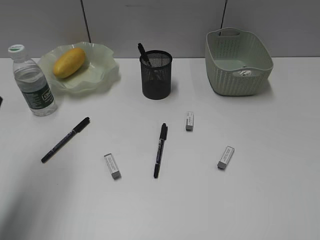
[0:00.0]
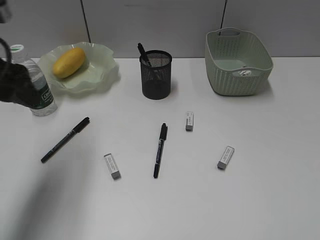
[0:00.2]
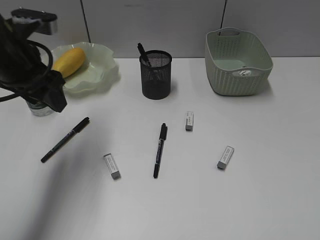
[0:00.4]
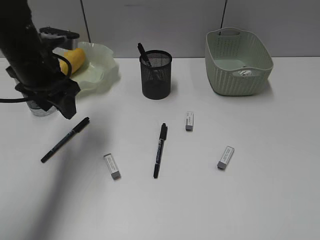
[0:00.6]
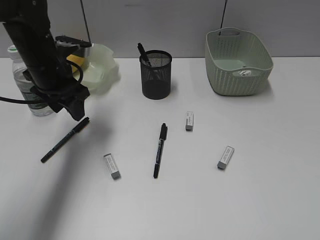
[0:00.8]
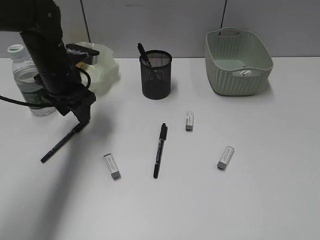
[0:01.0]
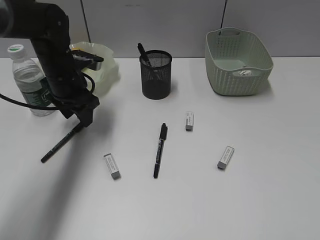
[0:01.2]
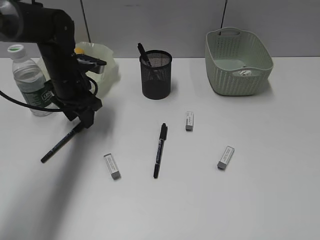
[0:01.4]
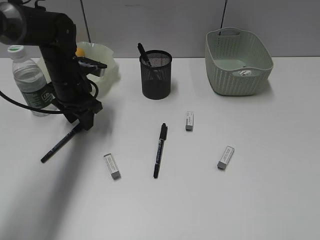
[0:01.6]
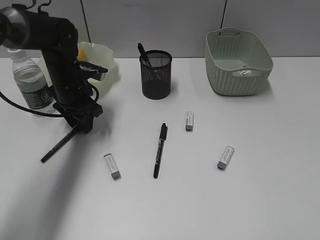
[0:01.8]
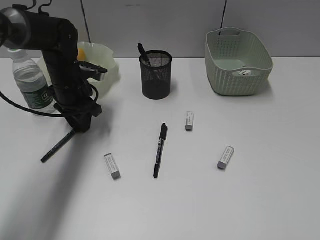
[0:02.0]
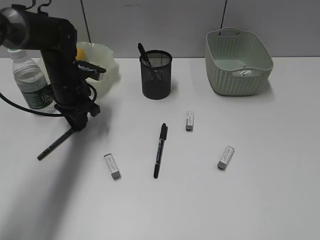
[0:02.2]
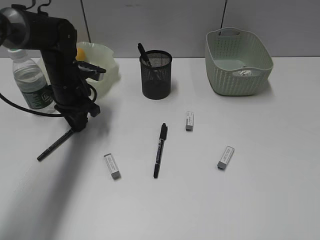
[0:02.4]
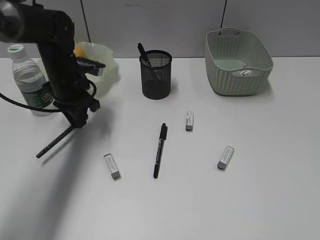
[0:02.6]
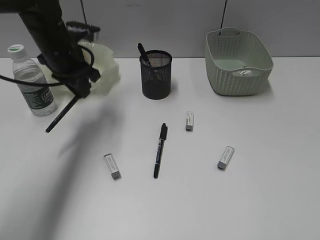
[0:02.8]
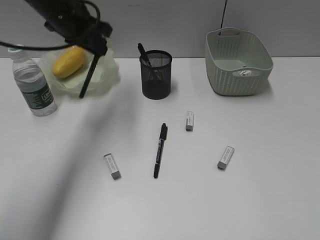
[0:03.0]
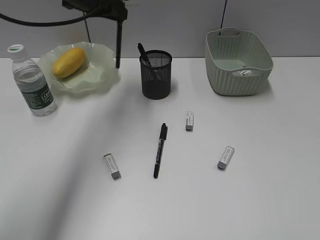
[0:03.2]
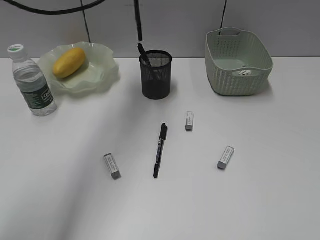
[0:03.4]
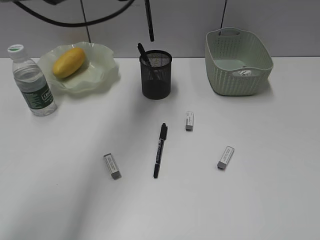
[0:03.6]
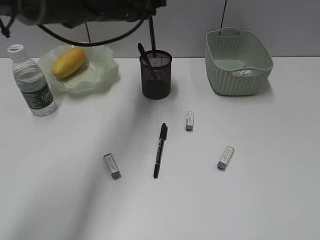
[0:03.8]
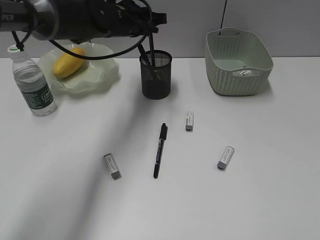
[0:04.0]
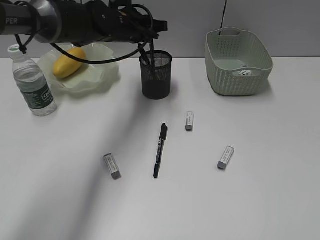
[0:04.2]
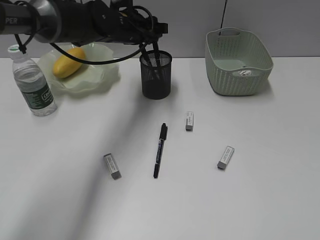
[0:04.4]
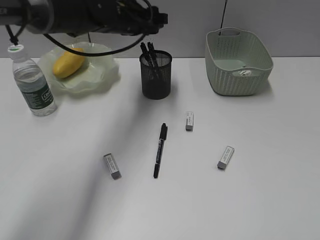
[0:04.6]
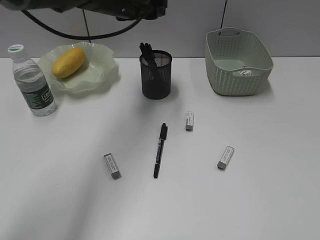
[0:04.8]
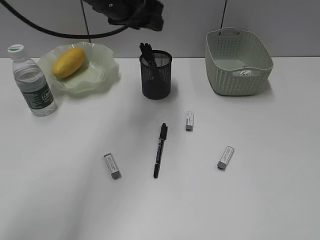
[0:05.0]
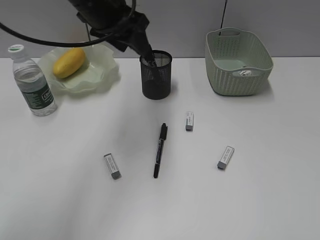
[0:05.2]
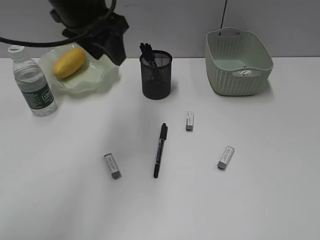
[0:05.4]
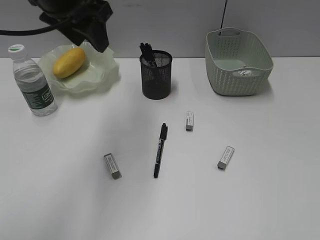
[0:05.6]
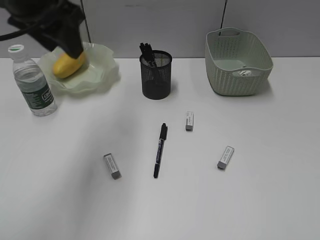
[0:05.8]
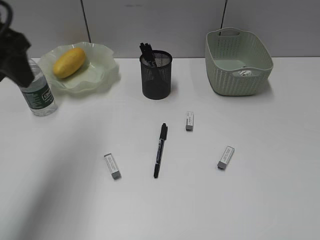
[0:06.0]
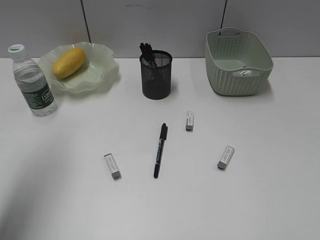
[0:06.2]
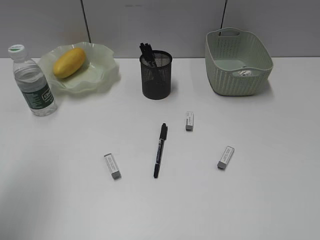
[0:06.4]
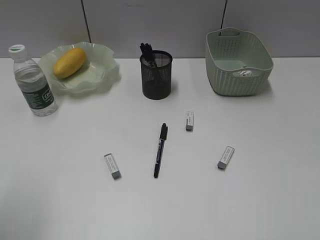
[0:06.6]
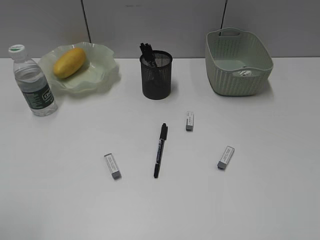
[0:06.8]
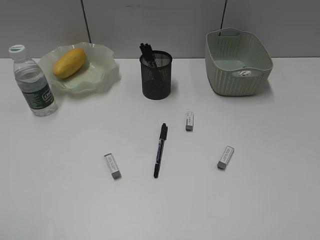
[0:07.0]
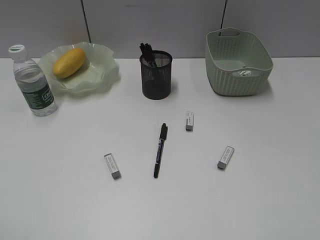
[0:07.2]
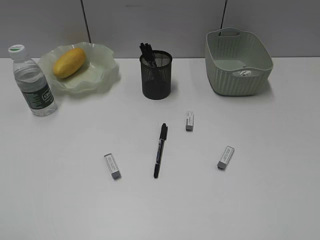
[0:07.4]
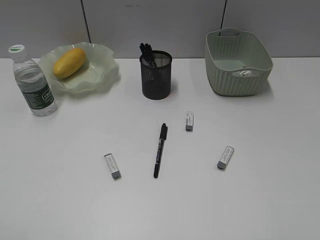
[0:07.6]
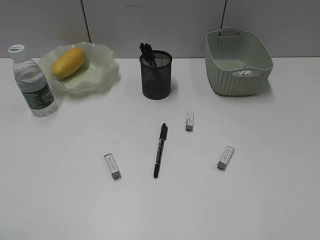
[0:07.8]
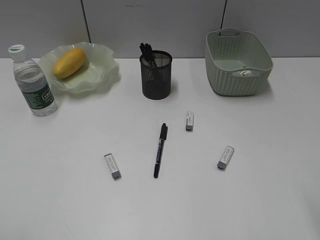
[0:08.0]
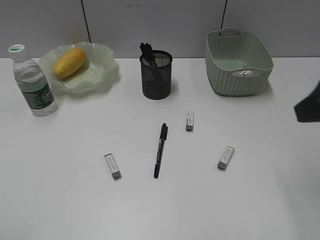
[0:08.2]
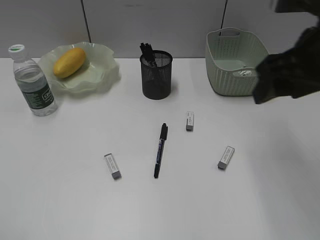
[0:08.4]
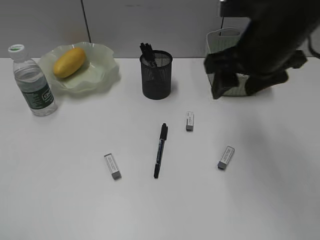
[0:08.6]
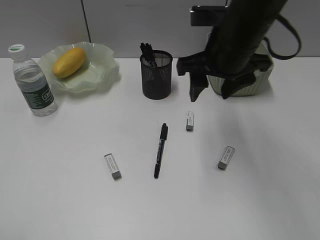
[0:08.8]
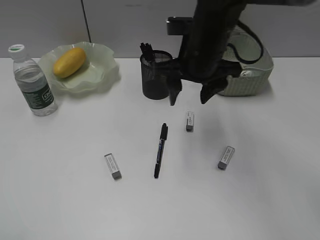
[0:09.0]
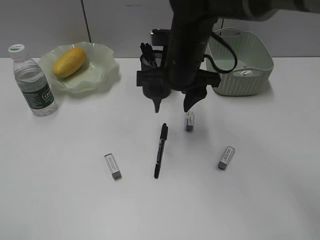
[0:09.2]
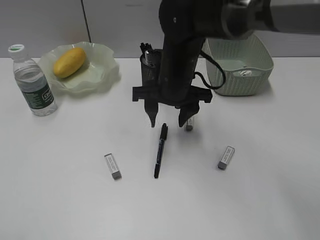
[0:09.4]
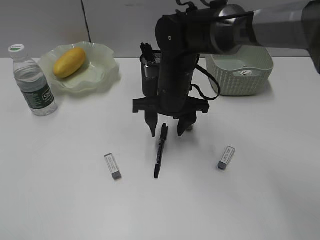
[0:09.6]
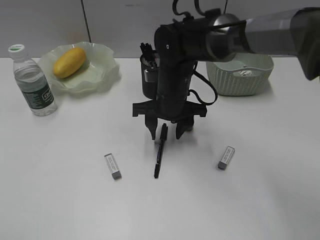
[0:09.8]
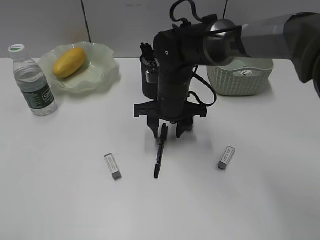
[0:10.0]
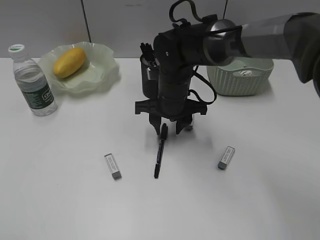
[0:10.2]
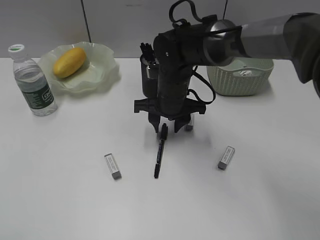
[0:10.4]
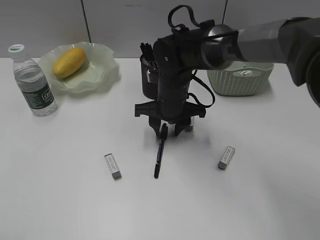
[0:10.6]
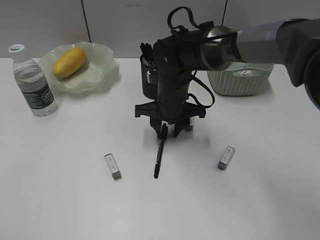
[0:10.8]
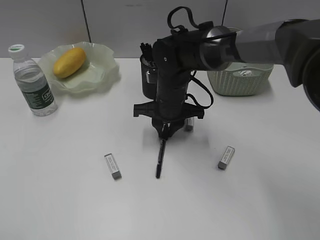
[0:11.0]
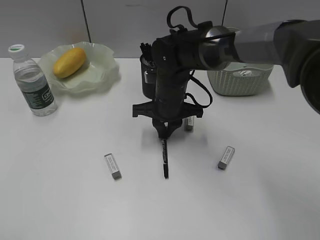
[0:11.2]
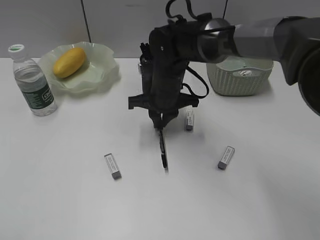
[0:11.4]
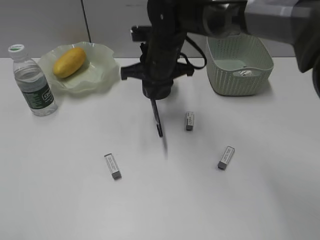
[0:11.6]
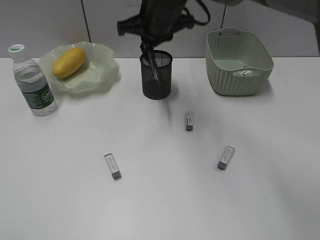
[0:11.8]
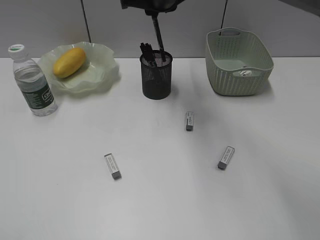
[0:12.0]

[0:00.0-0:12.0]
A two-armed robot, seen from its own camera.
Step, 0:00.0 to 0:02.4: Grasp the black pen with left gripper.
Step, 0:02.6 to 0:04.6: Place the black pen in pen holder with left gripper.
Step, 0:04.8 to 0:11.0: Grasp the black pen with right gripper.
0:00.0 to 0:01.6: The left gripper shifts some 30 cm forward, downward and to the right.
0:01.6 to 0:03.0: The left gripper is displaced upward by about 15 cm, and closes up.
0:03.0 to 0:04.4: The left gripper moves to the right and downward, roughly 10 cm, and opens its fingers.
0:04.4 to 0:06.0: The left gripper goes some 30 cm backward, to the left and upward.
0:06.0 to 0:07.6: The left gripper heads backward, covering some 25 cm.
0:07.6 to 0:09.0: The right gripper is displaced forward and to the left by some 40 cm.
0:09.0 to 0:10.4: The right gripper travels downward by approximately 10 cm.
0:10.4 to 0:12.0: The right gripper shifts some 15 cm upward, and closes.

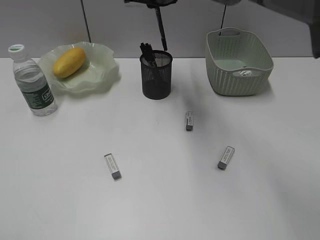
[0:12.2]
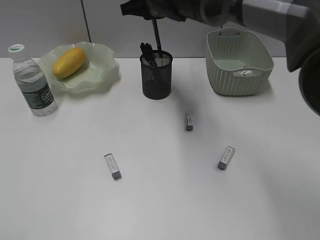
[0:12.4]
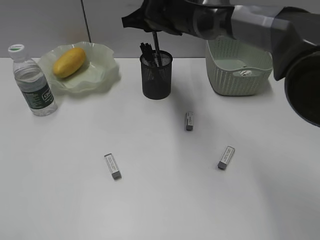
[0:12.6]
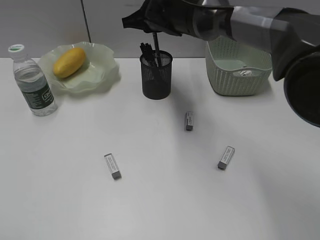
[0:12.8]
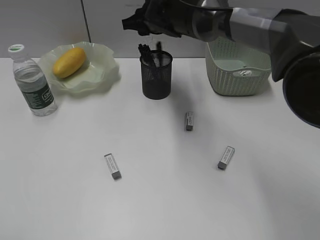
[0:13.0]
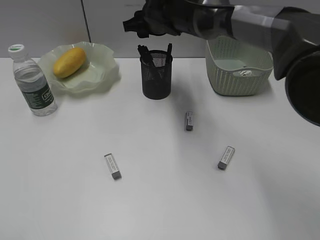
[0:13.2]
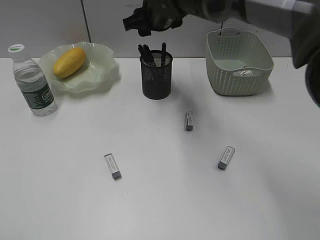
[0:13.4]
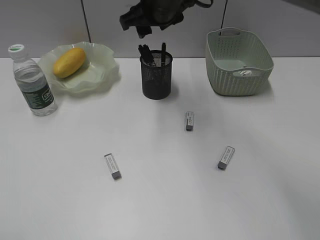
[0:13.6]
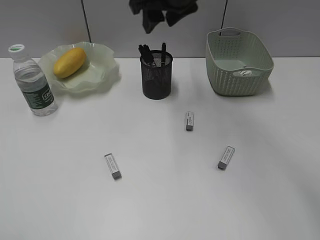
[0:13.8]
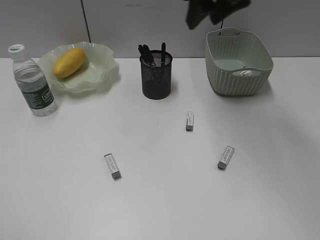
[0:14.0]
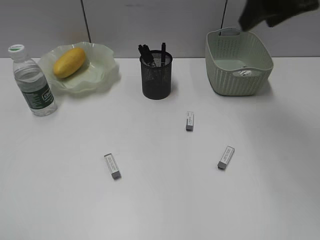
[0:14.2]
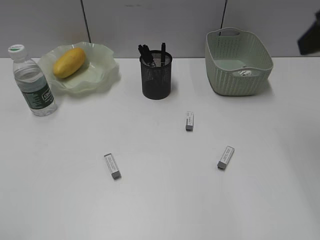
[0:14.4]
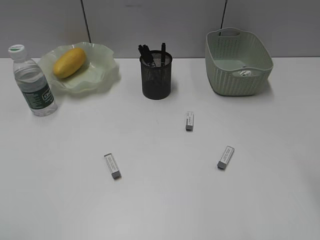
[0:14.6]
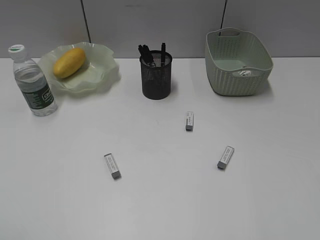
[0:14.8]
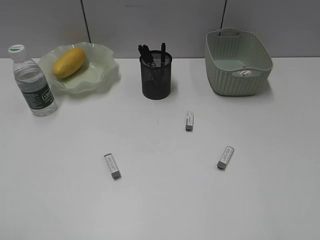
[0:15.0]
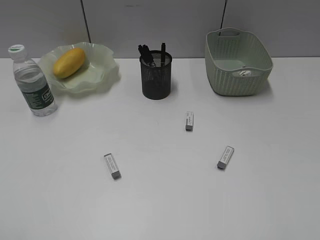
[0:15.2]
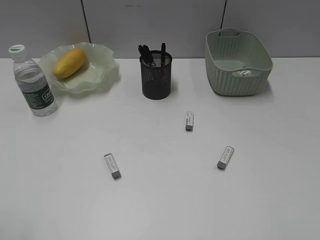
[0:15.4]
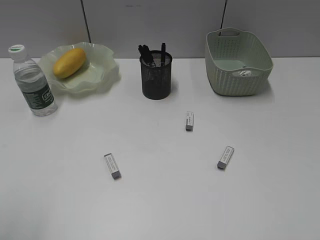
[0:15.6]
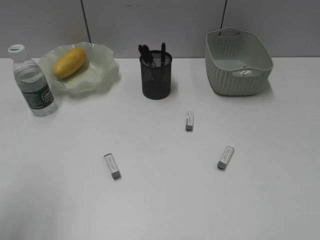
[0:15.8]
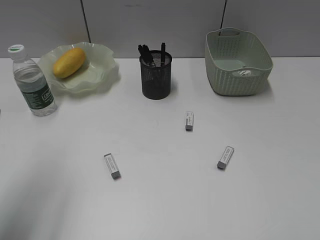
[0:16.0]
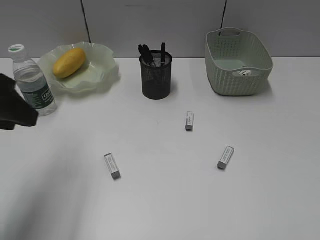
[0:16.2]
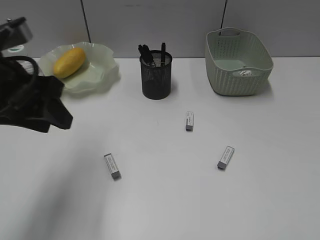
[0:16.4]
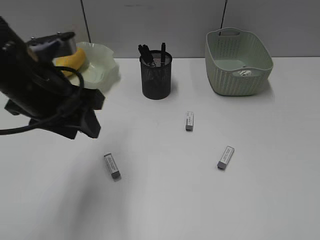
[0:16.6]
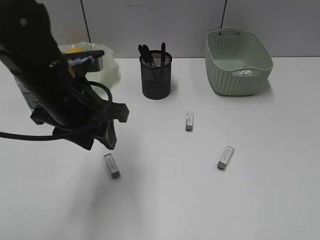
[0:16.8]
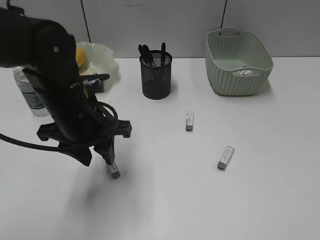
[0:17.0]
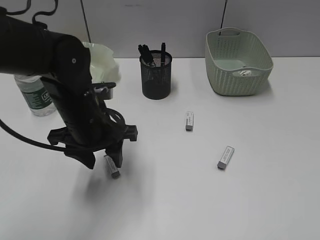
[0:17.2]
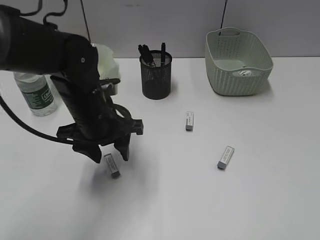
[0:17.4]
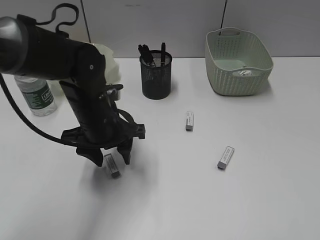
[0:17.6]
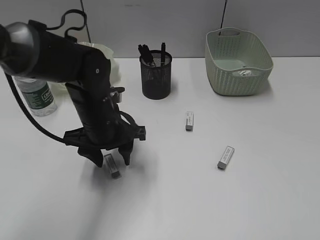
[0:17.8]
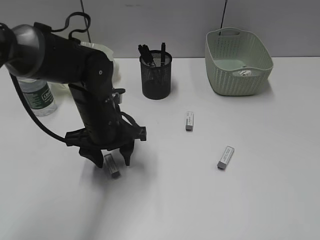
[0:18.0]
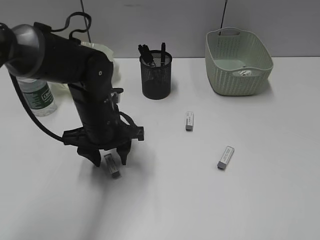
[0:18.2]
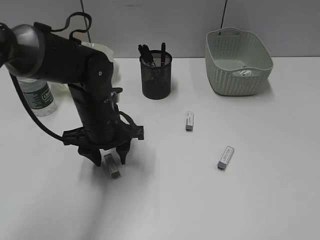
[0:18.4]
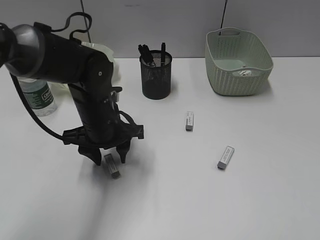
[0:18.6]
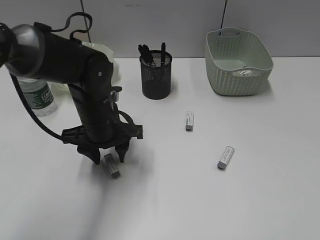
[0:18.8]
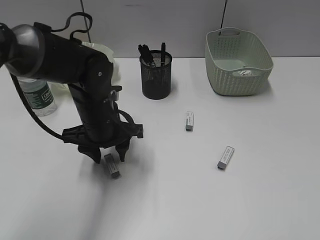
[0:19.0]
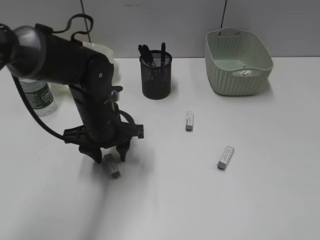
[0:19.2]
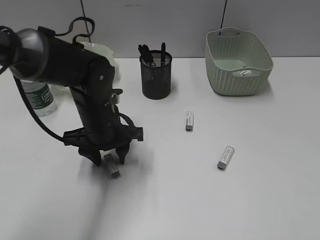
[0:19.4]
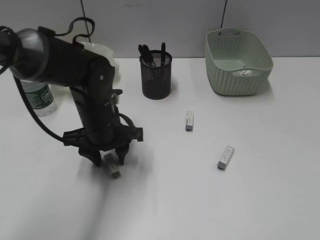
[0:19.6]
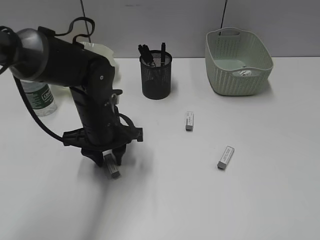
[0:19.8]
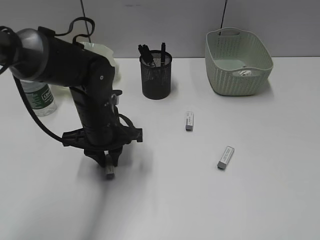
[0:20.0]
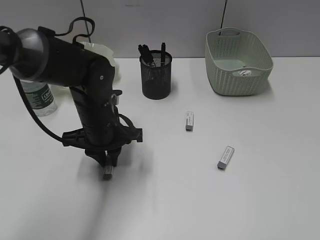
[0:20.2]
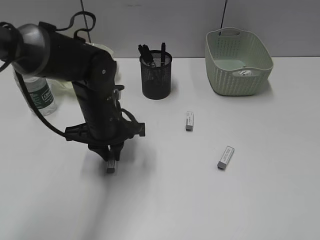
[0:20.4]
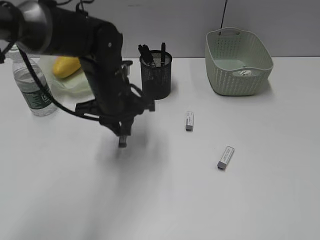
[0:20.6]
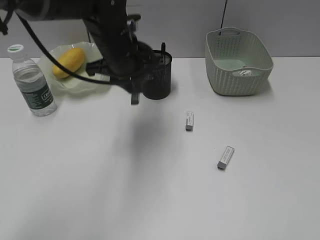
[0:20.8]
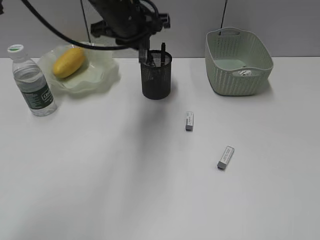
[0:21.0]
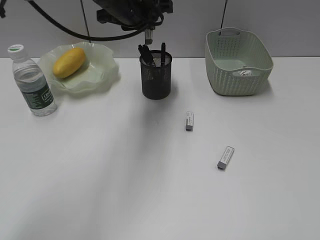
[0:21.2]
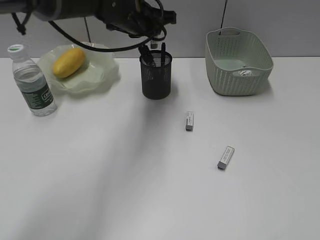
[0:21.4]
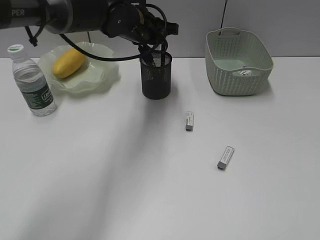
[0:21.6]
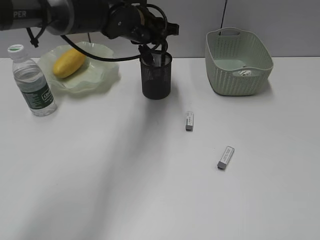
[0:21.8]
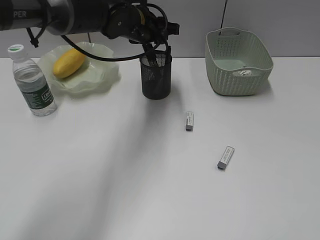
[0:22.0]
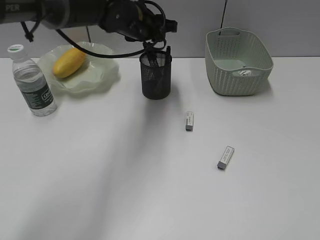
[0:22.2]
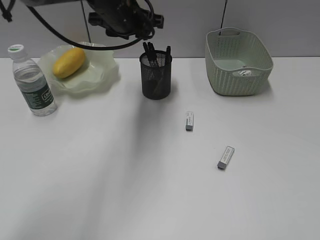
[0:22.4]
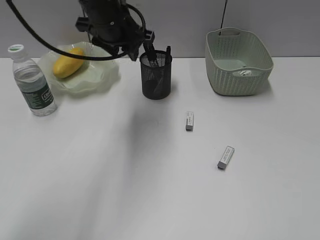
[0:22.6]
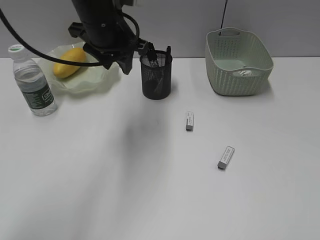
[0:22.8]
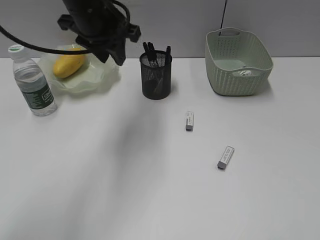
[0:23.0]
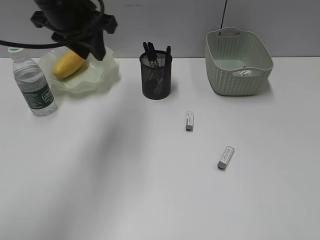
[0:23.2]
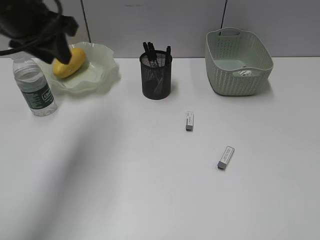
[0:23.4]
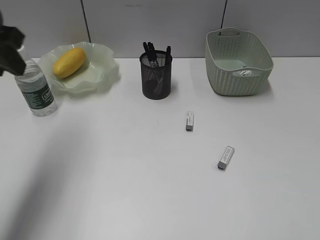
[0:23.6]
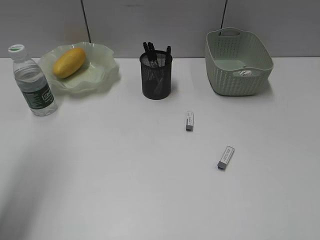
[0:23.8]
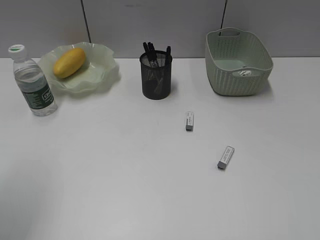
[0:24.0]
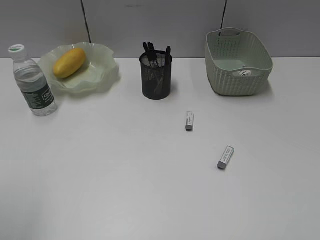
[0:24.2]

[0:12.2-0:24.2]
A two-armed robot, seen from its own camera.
Step, 0:13.2 to 0:20.2: Grasp the eraser with left gripper.
Step, 0:20.4 to 0:21.8: Place the eraser in pen holder with left gripper.
0:12.2 to 0:13.8: The right gripper goes roughly 5 cm backward, and opens its fingers.
0:13.8 to 0:15.2: The right gripper shifts approximately 50 cm backward and to the right.
0:15.2 to 0:16.6: The left gripper shifts some 30 cm forward and to the right.
0:16.6 to 0:18.2: The left gripper goes some 15 cm downward, forward and to the right.
0:18.2 to 0:19.8: Both grippers stay about where they are.
0:19.8 to 0:21.2: The left gripper heads upward and forward, covering approximately 20 cm.
0:21.2 to 0:22.6: The left gripper opens.
0:22.6 to 0:24.2: The left gripper is displaced backward and to the left by some 40 cm.
